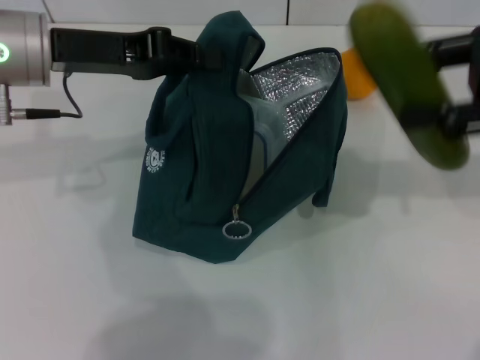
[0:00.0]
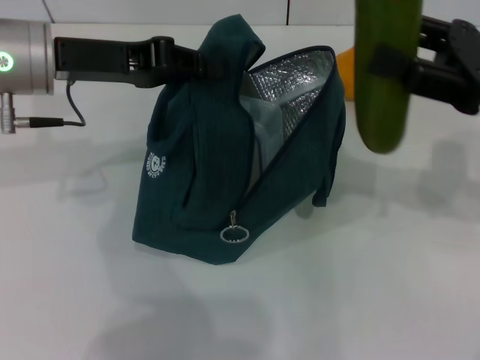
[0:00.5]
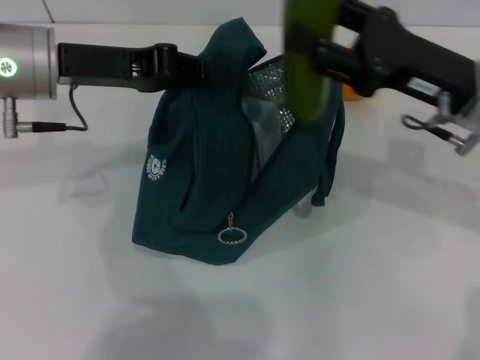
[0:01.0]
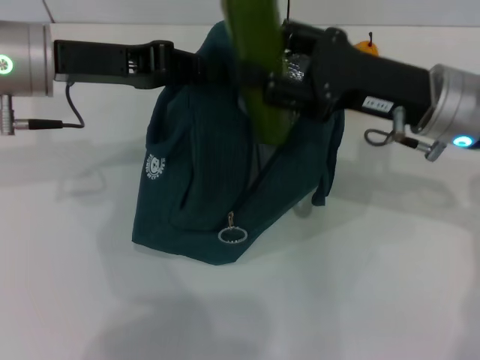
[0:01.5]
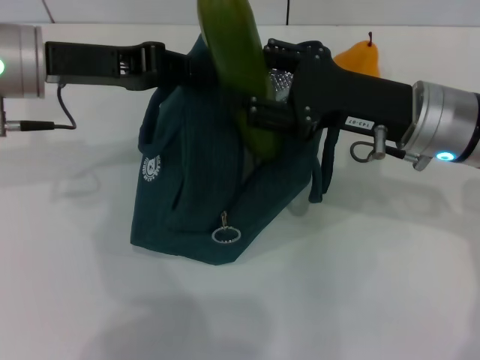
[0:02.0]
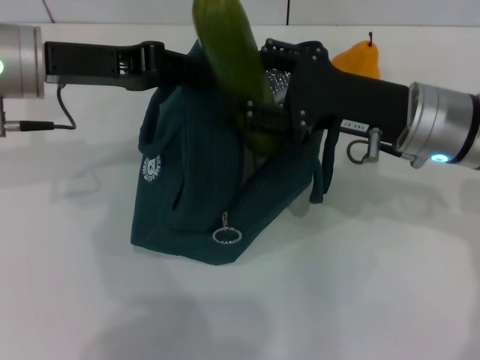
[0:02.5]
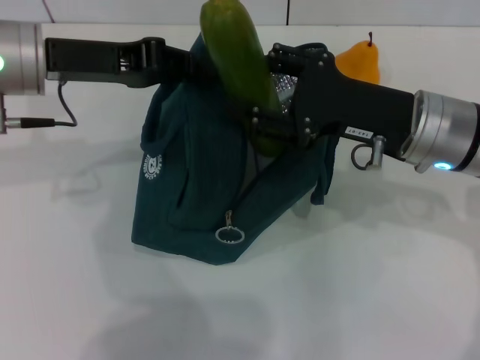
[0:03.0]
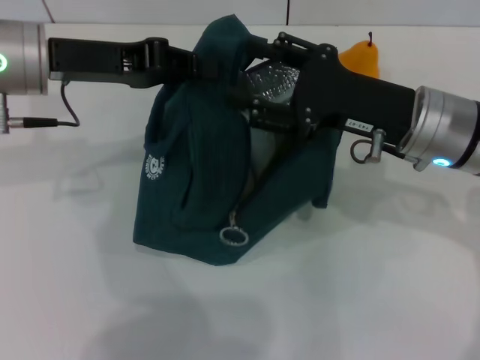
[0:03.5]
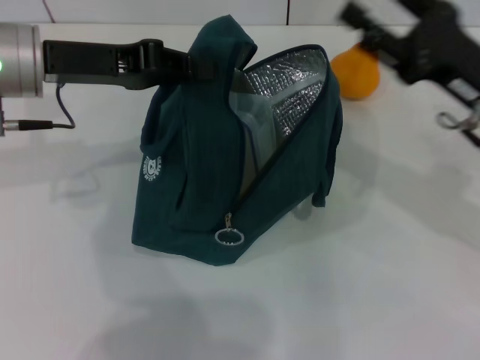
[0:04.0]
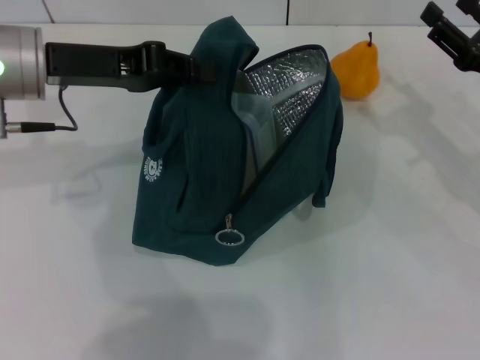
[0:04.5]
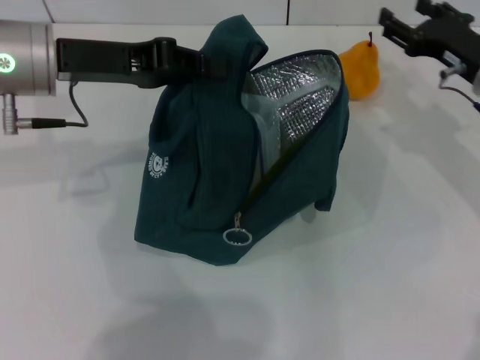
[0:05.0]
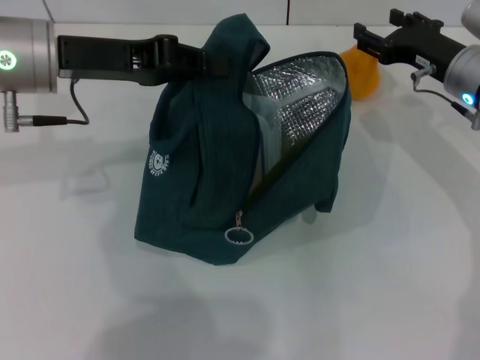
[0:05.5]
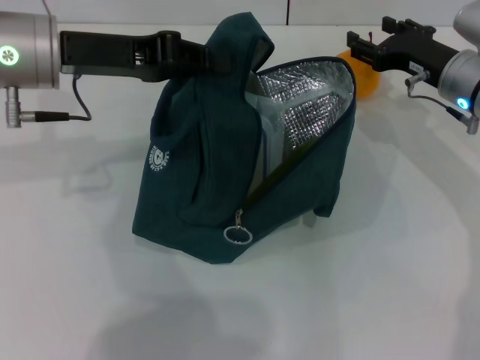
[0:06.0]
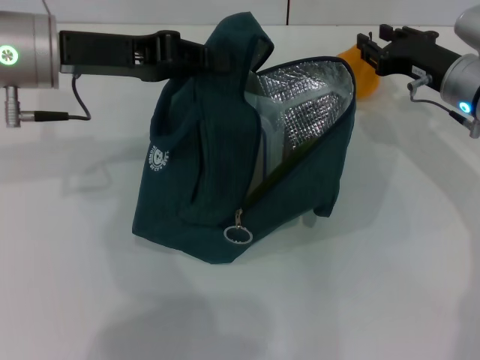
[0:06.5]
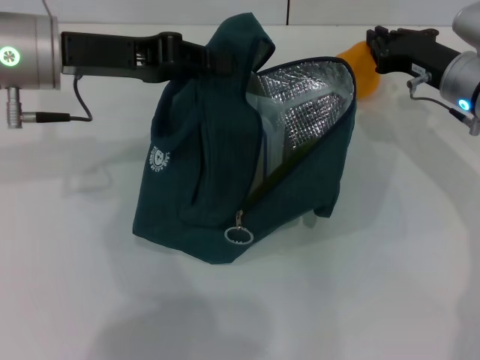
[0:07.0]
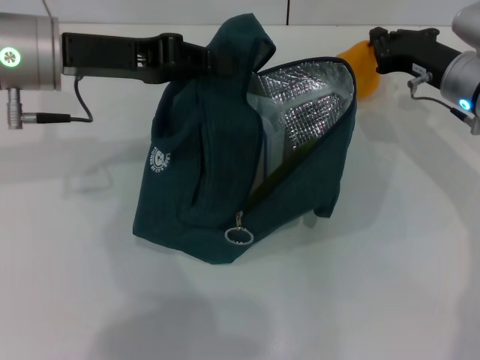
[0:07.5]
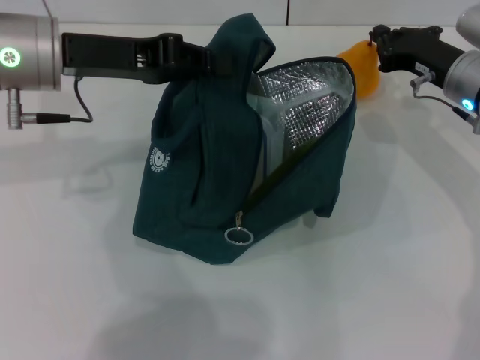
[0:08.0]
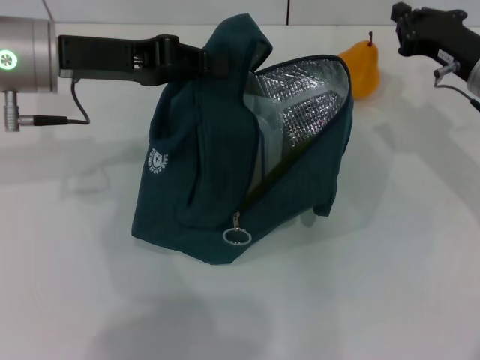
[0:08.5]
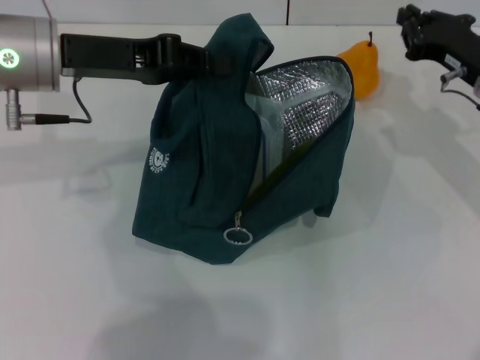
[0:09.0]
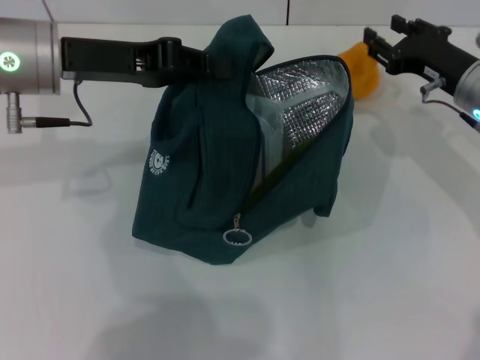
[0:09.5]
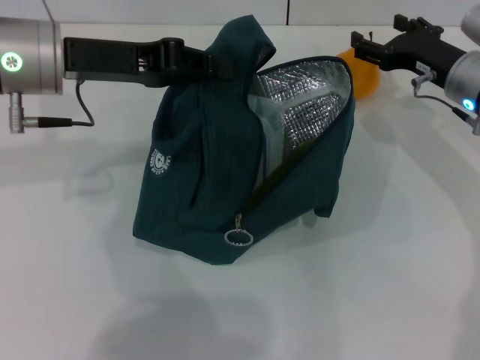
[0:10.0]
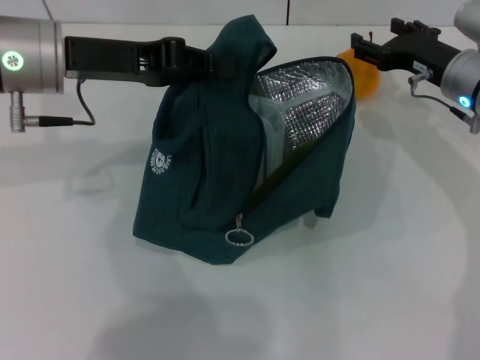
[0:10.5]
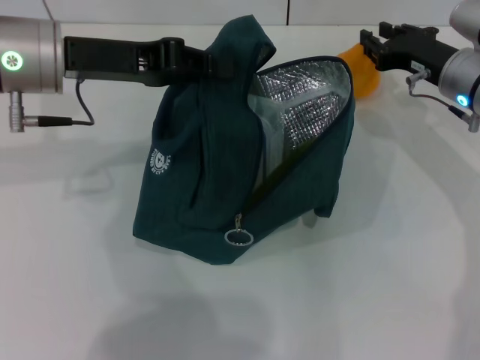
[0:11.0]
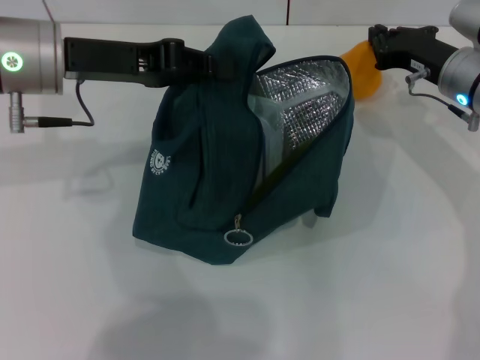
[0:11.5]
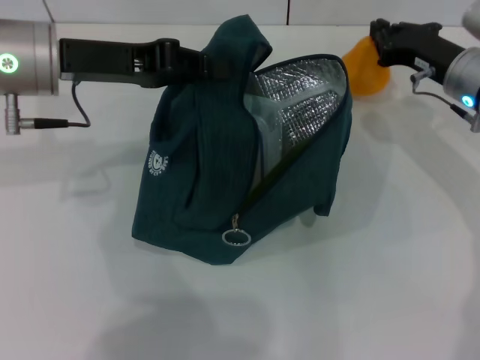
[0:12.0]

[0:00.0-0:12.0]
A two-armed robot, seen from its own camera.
Step, 0:00.0 to 0:03.5: Put the cucumber into the lunch bag with your right hand.
Step, 0:04.0 to 0:11.5: Grab the pear with your right hand.
0:00.0 to 0:02.0: The right gripper heads to the left and downward, covering roughly 15 cm.
0:02.0 to 0:04.0: The right gripper goes approximately 5 cm to the right.
0:04.0 to 0:06.0: The right gripper heads forward, covering some 10 cm.
0:06.0 to 0:08.0: The right gripper closes.
0:08.0 to 0:10.0: The right gripper opens up.
0:10.0 to 0:12.0: The right gripper closes up.

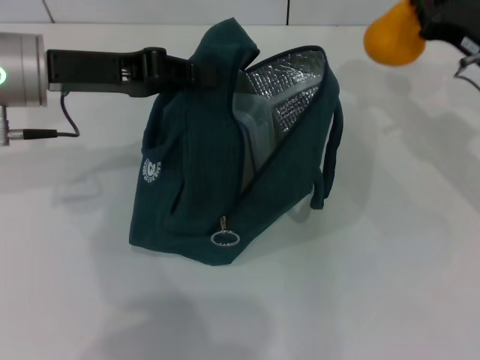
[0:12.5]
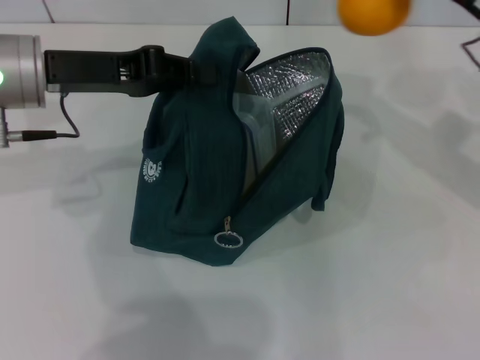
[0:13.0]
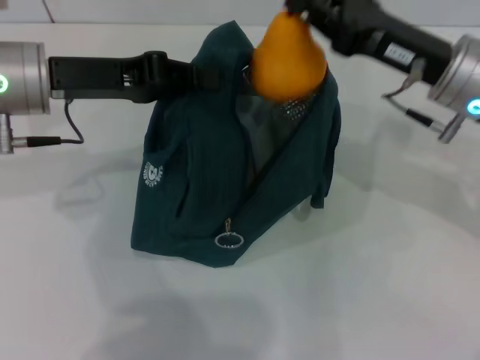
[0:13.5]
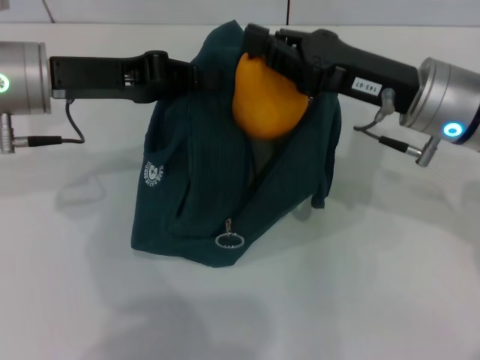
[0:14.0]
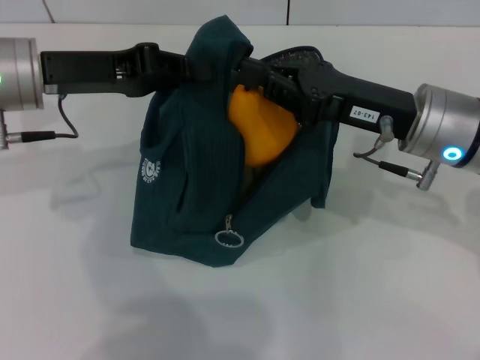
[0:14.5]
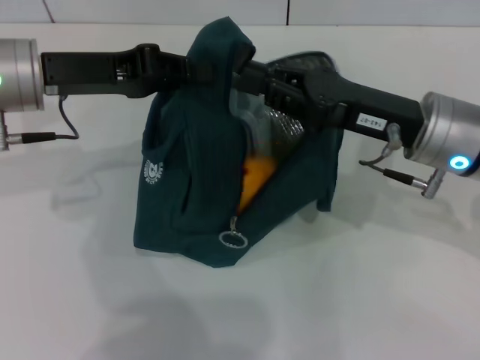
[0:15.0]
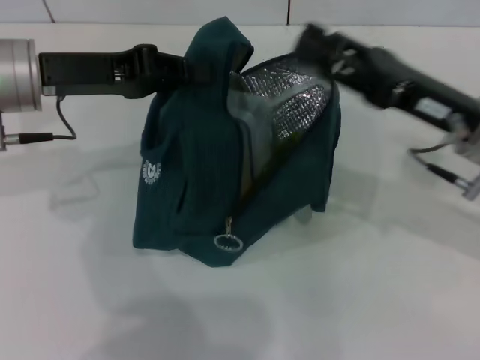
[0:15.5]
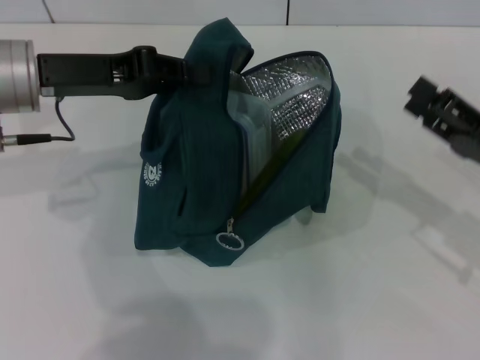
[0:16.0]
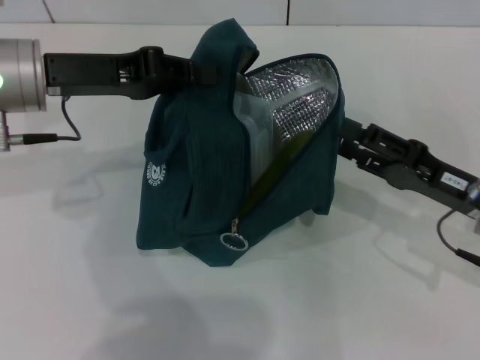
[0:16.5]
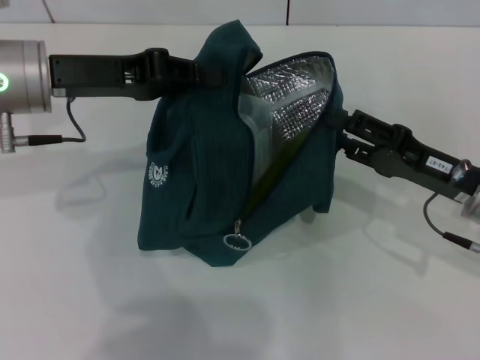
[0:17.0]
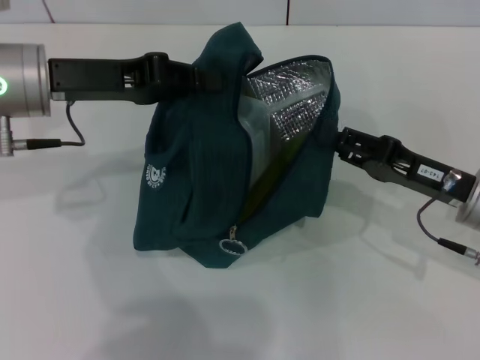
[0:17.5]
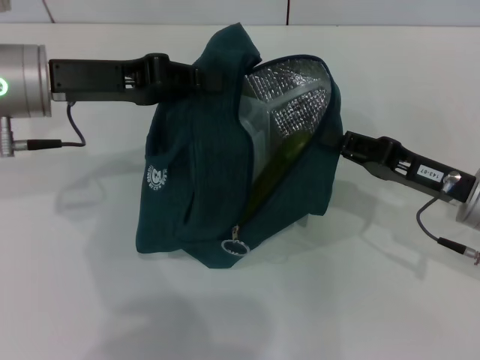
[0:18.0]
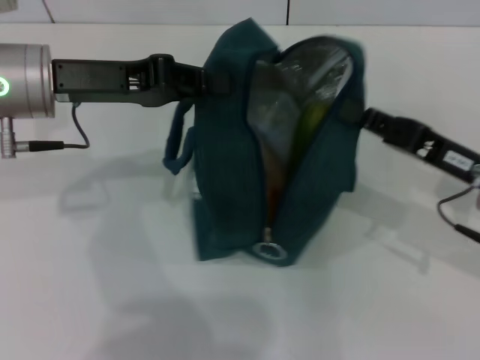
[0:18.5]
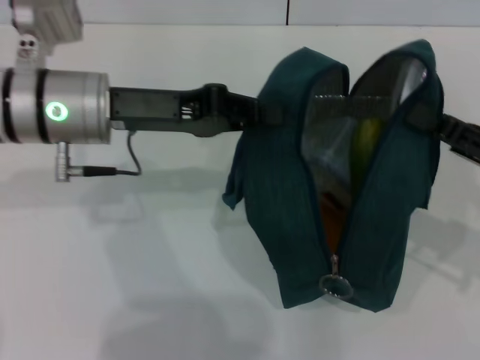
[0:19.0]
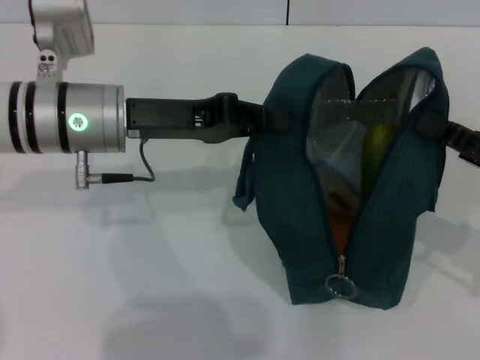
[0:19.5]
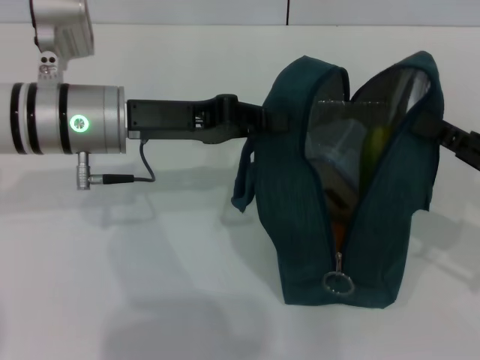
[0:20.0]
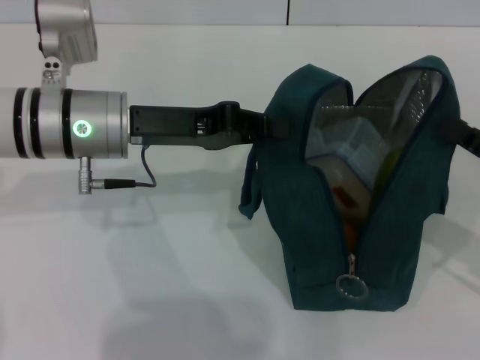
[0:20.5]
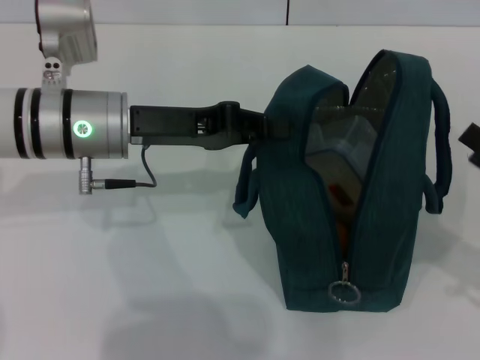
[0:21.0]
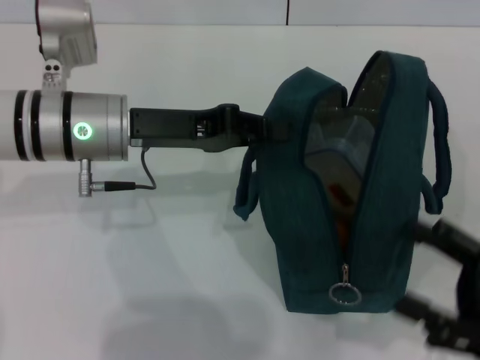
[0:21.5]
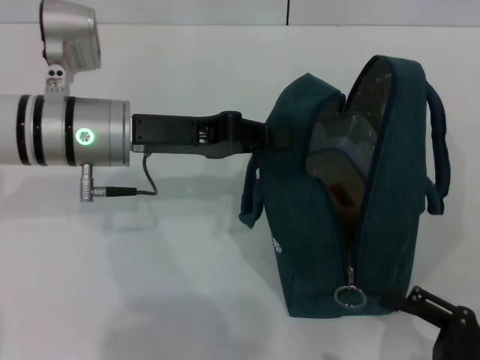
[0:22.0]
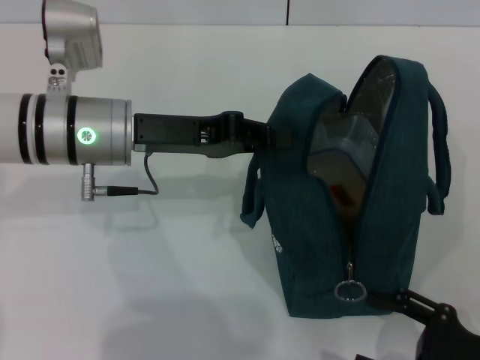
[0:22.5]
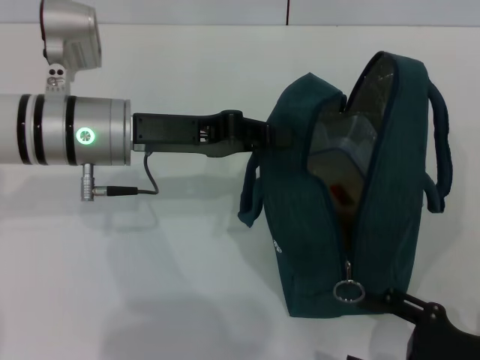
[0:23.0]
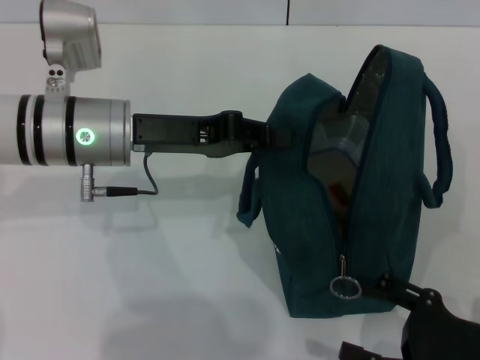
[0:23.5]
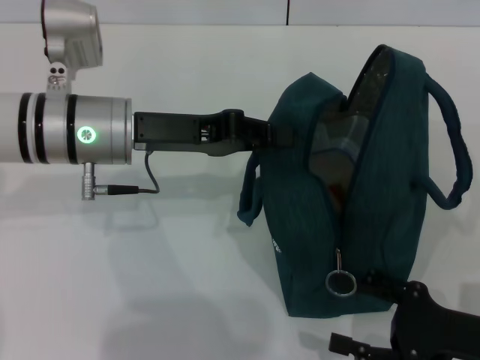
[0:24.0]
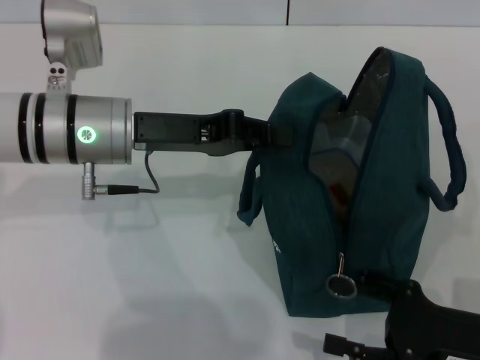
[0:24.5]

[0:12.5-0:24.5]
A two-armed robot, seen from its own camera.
Step, 0:15.5 to 0:20.5: Hold the lunch bag with your right hand.
0:12.5 to 0:14.5: The right gripper moves to the left and backward, approximately 10 cm.
0:14.5 to 0:16.5: The right gripper moves to the right and downward, about 10 cm, and opens its fingers.
0:16.5 to 0:18.5: The right gripper closes.
0:18.5 to 0:20.5: The left gripper moves some 5 cm. The right gripper is displaced to the right by approximately 5 cm.
0:20.5 to 0:22.5: The right gripper shifts some 10 cm backward and downward, and opens.
0:22.5 to 0:24.5: The grippers make only small movements.

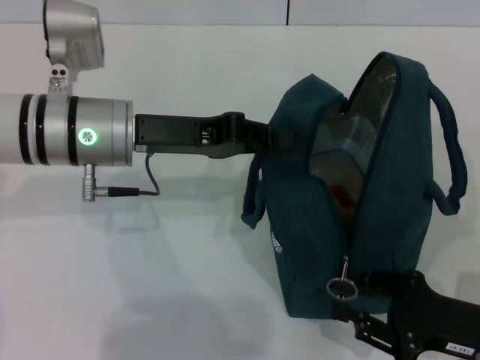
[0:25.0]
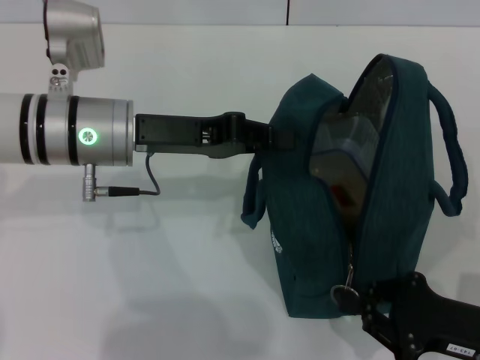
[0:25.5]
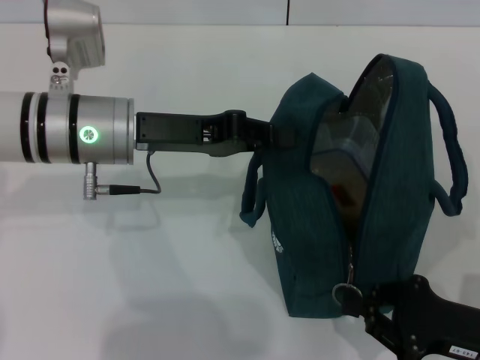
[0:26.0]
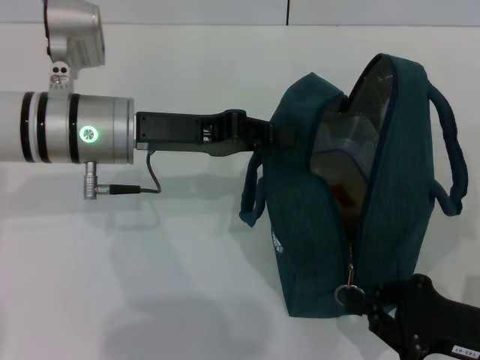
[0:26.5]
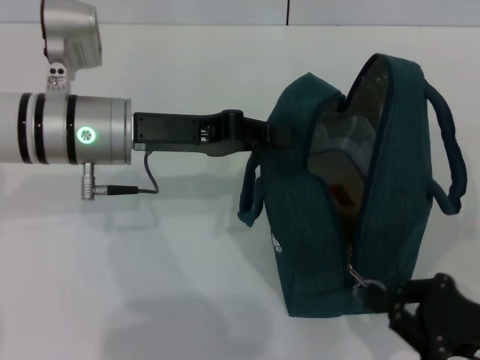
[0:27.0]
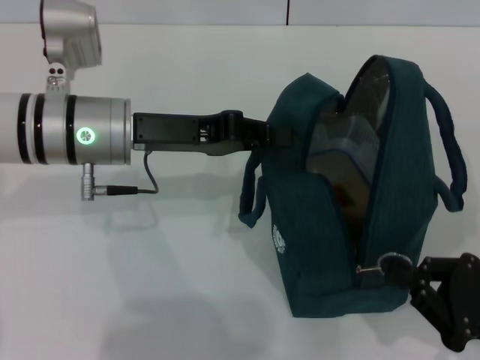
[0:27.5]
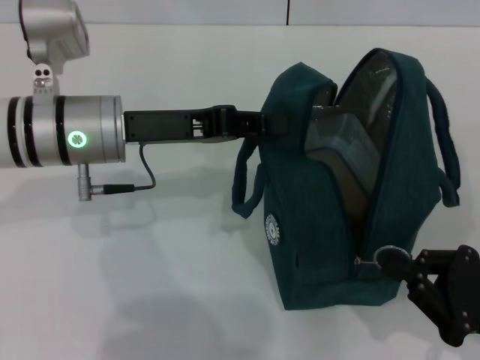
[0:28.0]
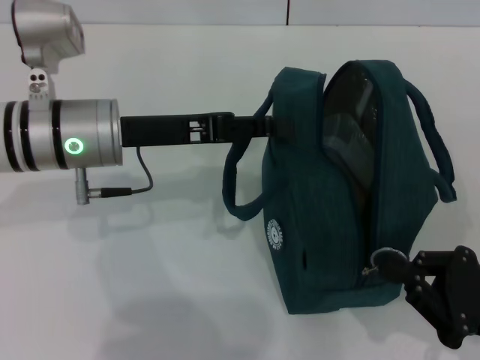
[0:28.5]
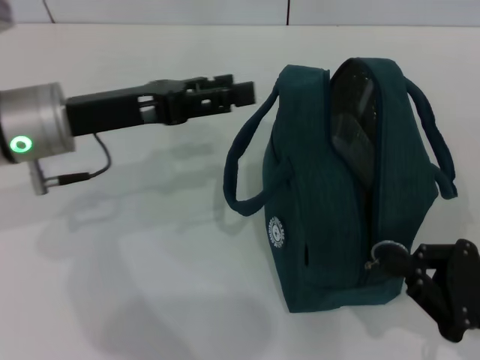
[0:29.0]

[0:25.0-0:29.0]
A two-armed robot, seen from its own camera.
Step, 0:25.0 to 0:28.5: Hold the lunch bag with your left hand.
0:25.0 to 0:27.0: The right gripper closes its fingers.
0:27.0 to 0:29.0: The left gripper shifts by about 5 cm, and opens up.
